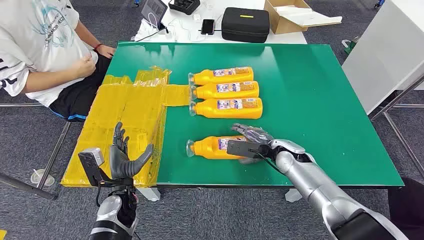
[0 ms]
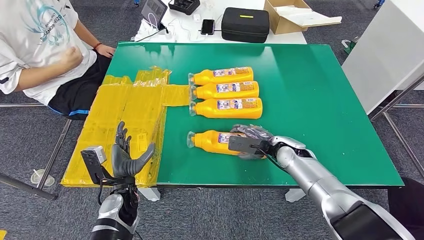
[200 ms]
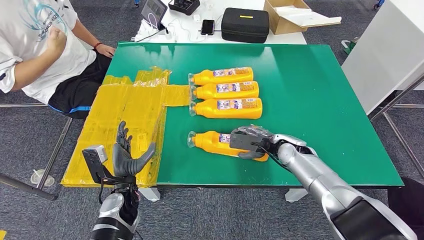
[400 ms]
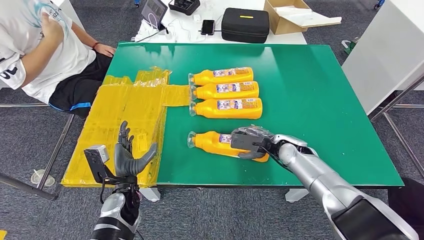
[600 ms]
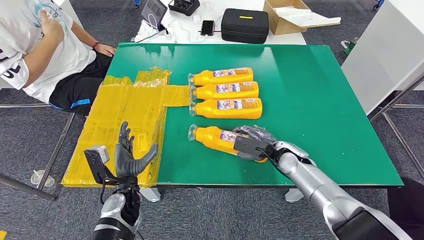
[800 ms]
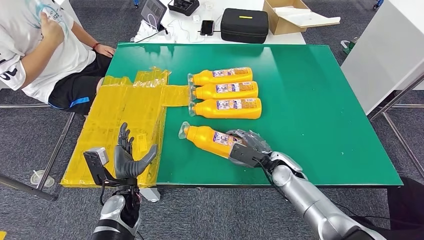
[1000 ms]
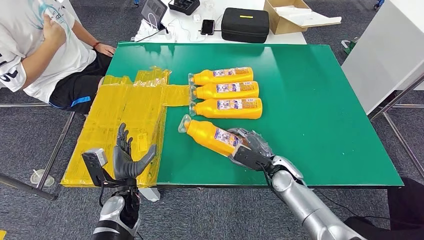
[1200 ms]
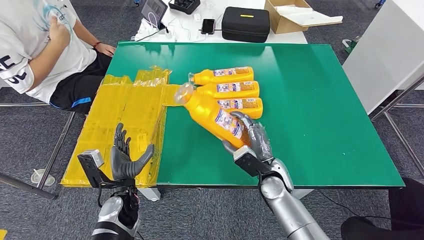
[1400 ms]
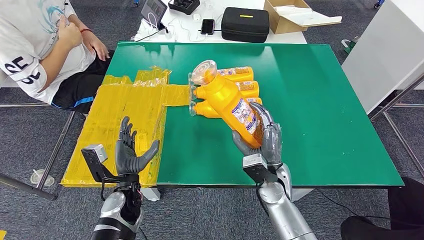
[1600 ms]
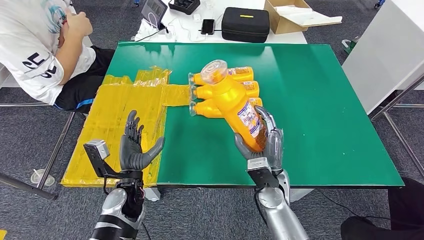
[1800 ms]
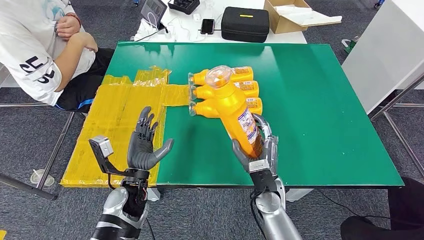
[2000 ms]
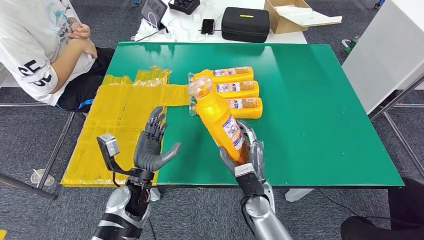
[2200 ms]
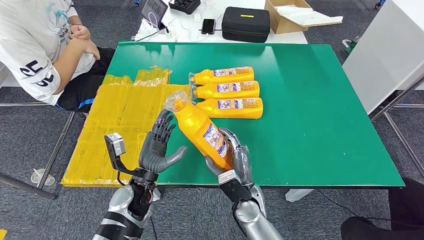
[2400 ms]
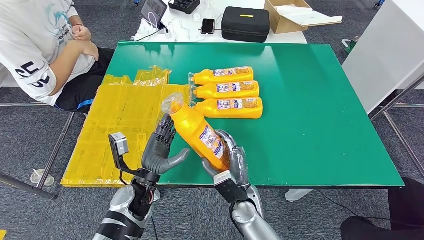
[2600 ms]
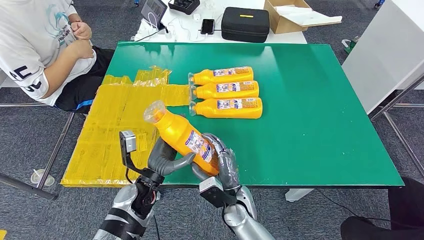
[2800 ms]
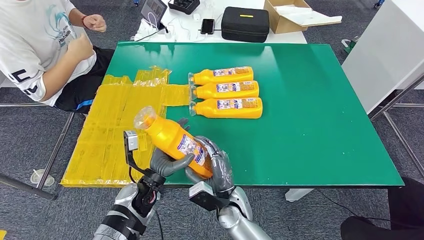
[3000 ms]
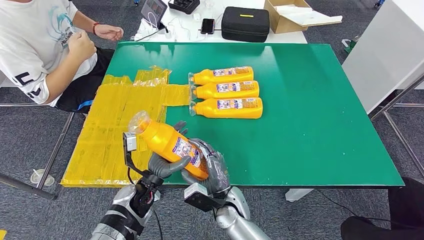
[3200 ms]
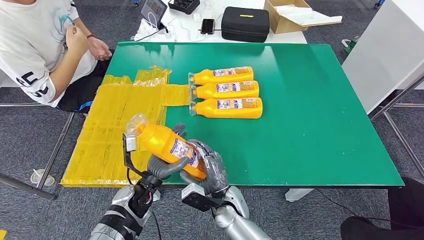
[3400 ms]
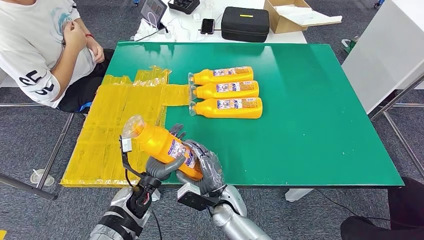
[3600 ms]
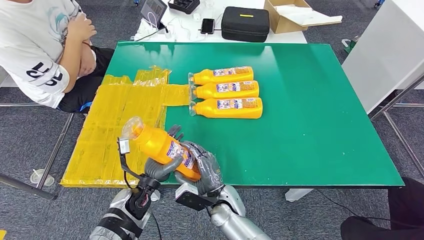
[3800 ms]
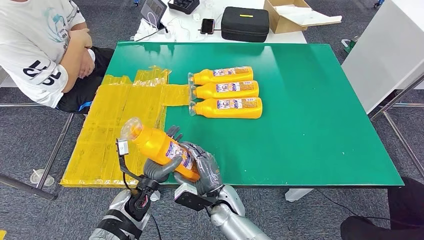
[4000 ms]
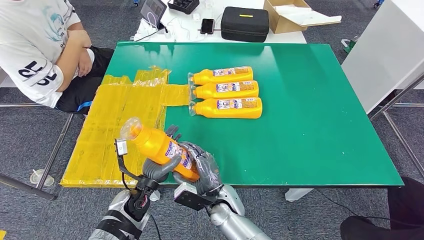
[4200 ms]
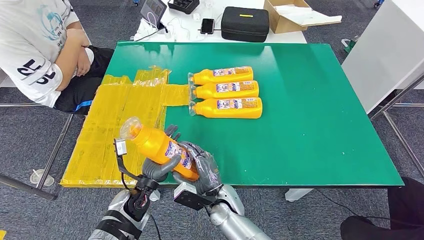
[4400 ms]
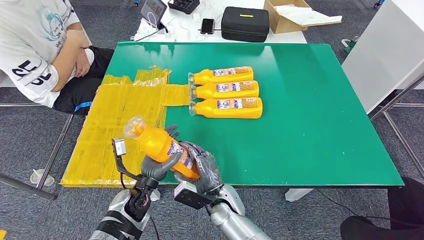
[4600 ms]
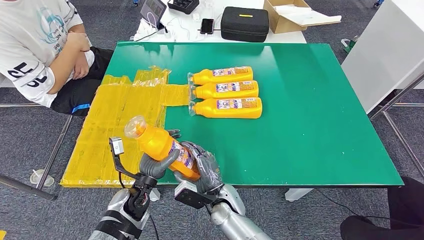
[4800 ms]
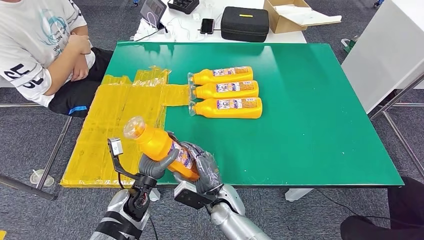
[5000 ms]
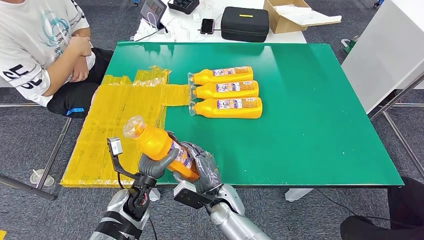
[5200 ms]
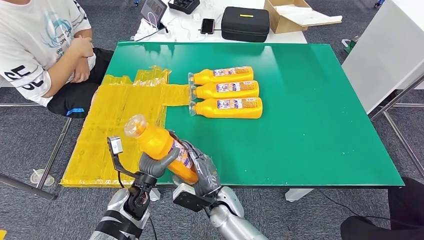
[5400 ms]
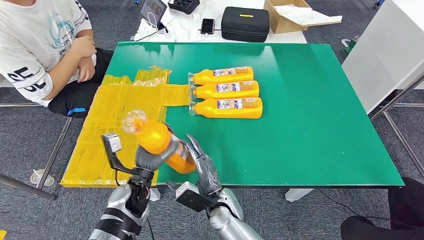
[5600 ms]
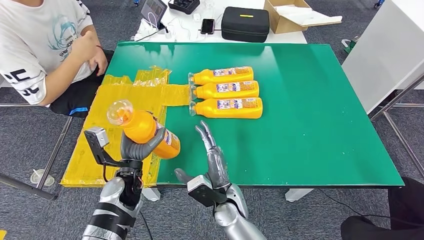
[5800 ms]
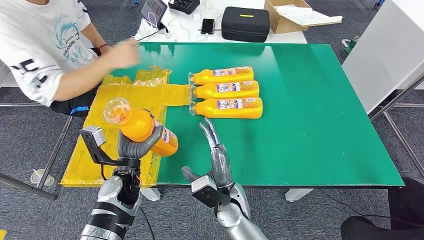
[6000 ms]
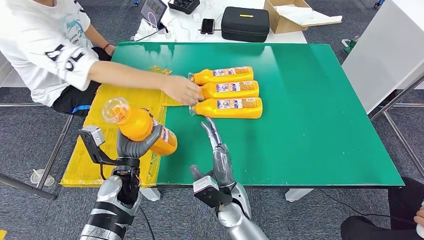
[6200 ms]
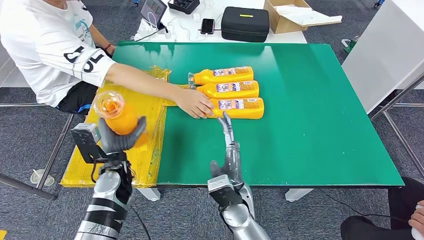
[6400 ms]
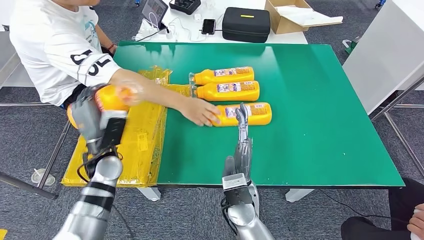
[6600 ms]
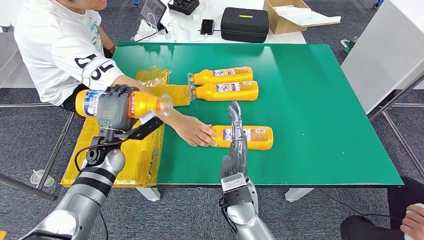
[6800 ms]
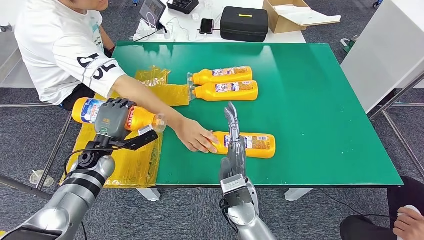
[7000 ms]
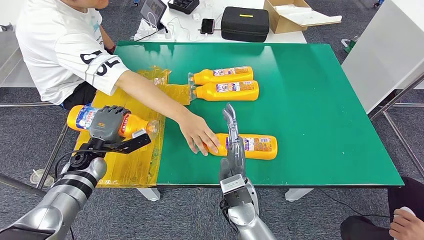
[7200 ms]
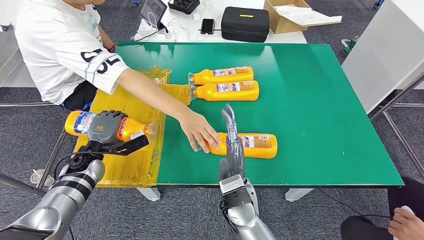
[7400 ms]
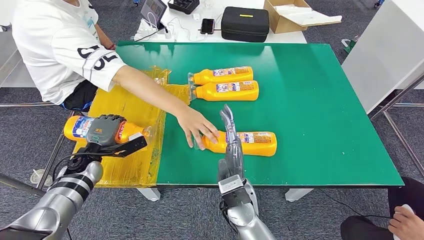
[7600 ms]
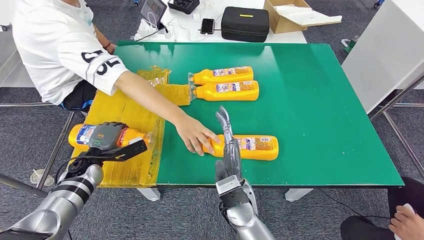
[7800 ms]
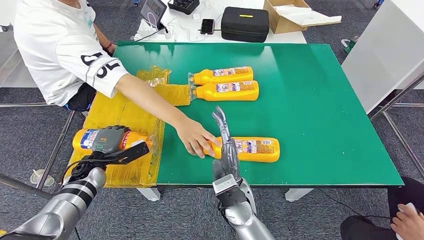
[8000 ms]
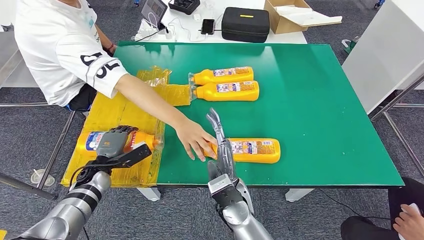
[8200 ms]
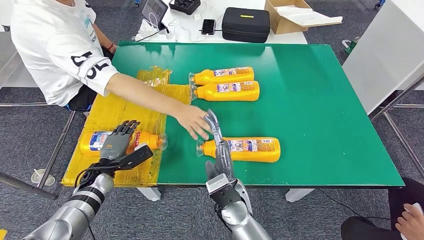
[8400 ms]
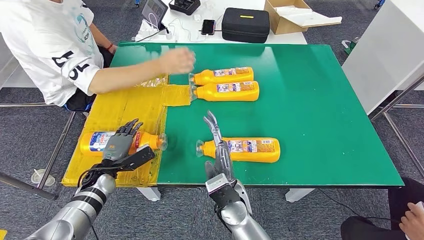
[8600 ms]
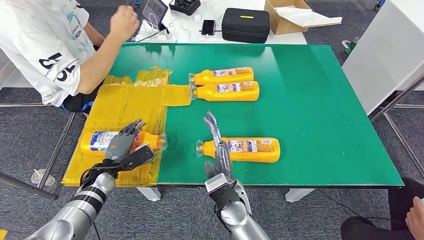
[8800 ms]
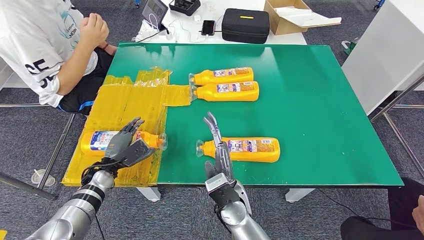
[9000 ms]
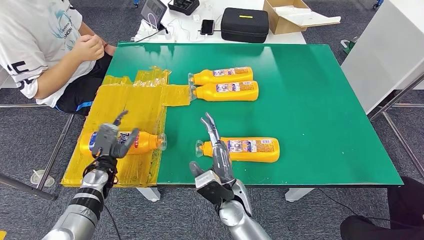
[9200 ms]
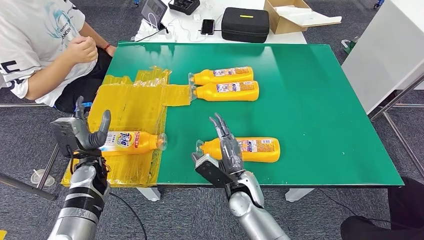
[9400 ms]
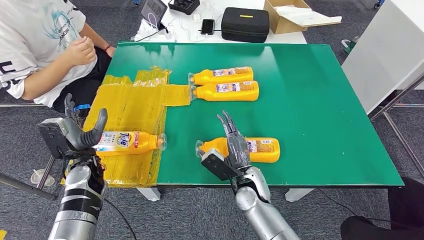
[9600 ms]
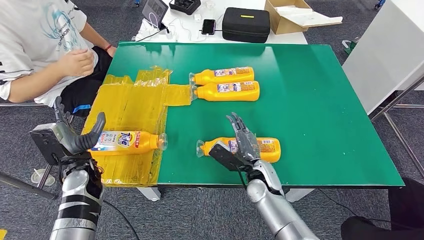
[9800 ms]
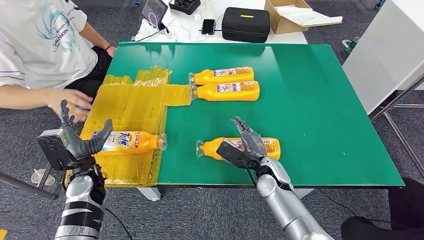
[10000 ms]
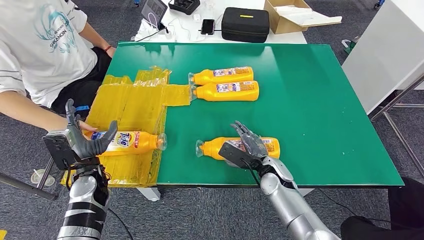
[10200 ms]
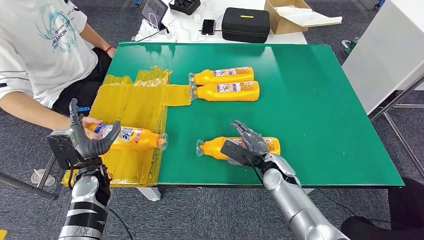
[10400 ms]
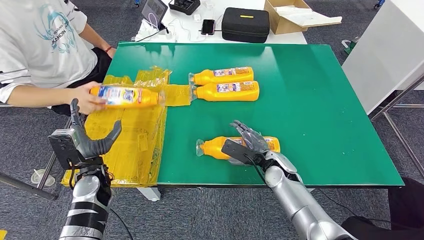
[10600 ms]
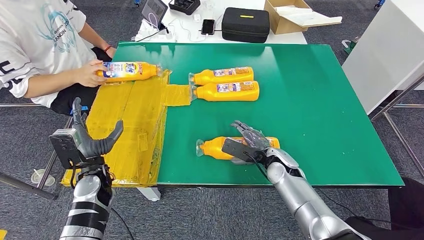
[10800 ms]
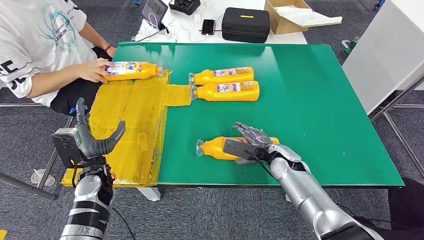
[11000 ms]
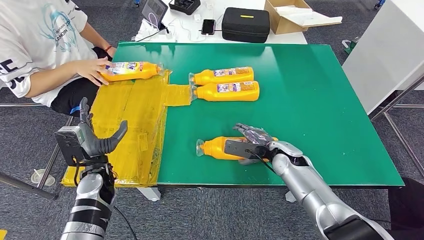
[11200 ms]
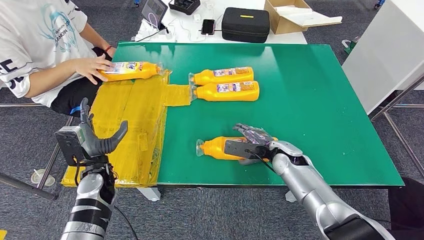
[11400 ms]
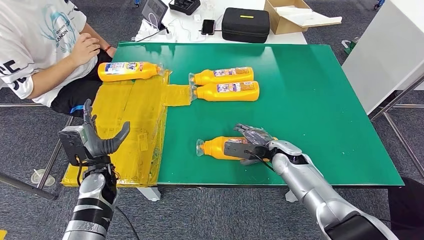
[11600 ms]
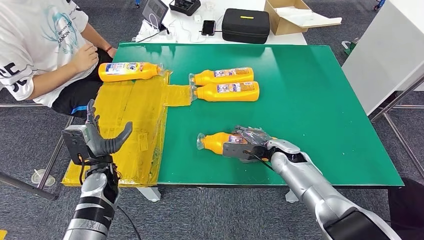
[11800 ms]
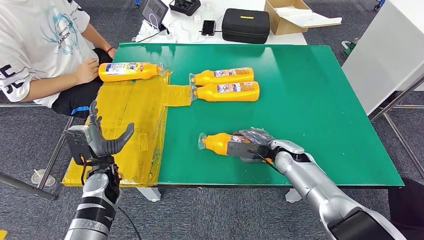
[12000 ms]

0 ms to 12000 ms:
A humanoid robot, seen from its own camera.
Step, 0 ms to 2600 ms: Take the fast-moving consumer goods bottle from the table.
Step, 2800 ms to 9600 ms: Flip the fast-moving consumer goods bottle to the front side.
1600 ms to 3000 ms: The right hand shifts approximately 10 cm to the left and downward.
3000 ms to 4400 ms: The hands move only a little.
4400 ms to 6000 ms: The left hand goes some 5 cm upward.

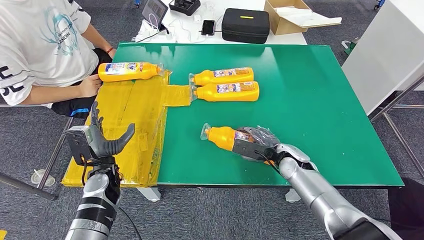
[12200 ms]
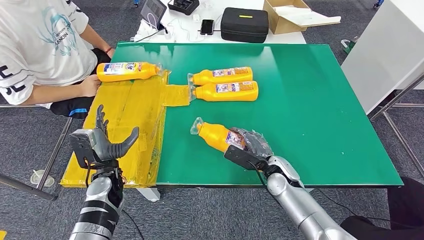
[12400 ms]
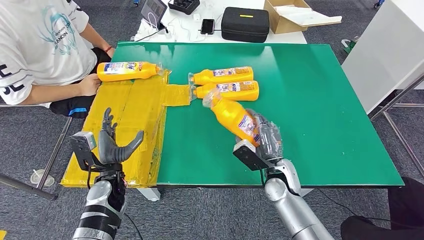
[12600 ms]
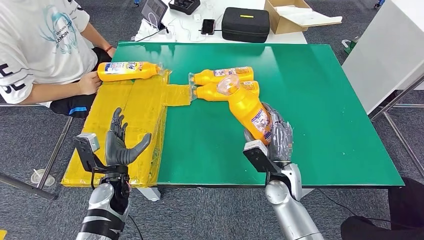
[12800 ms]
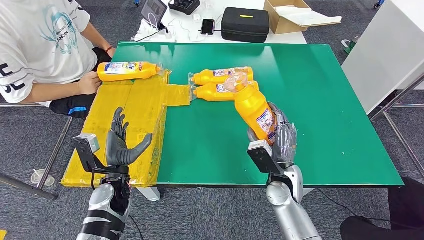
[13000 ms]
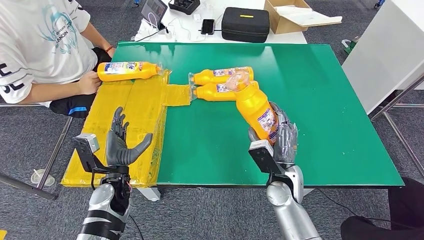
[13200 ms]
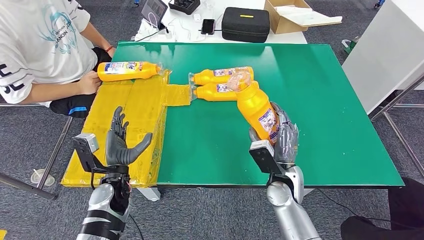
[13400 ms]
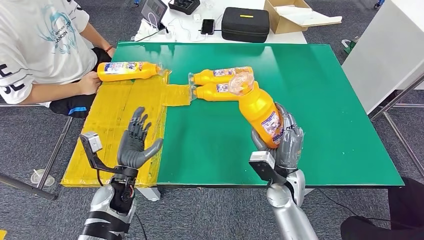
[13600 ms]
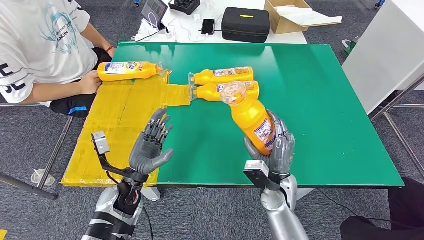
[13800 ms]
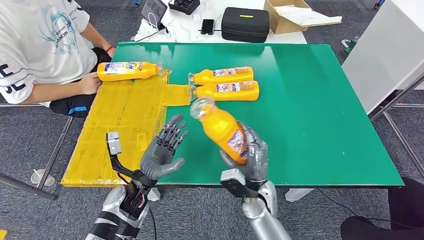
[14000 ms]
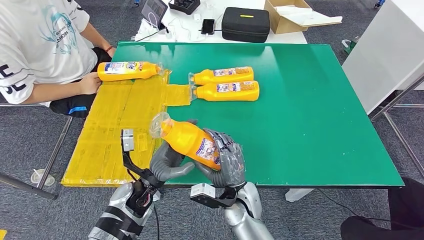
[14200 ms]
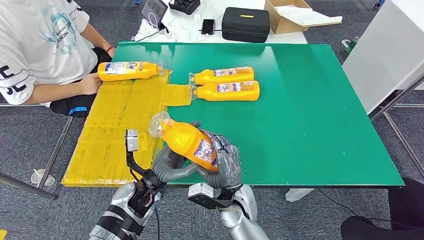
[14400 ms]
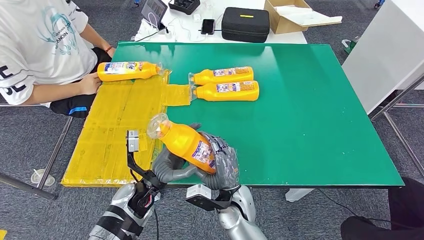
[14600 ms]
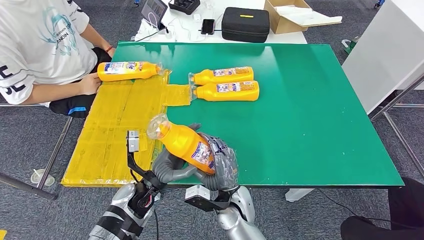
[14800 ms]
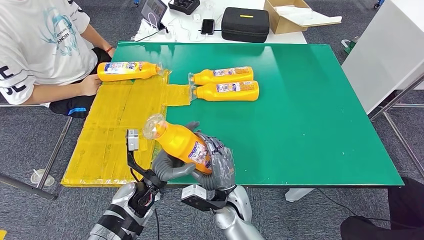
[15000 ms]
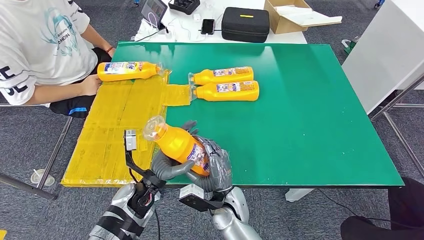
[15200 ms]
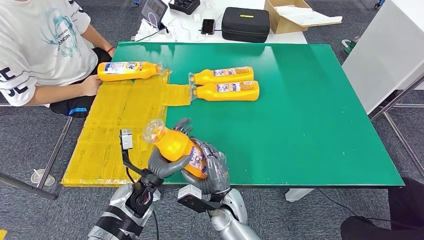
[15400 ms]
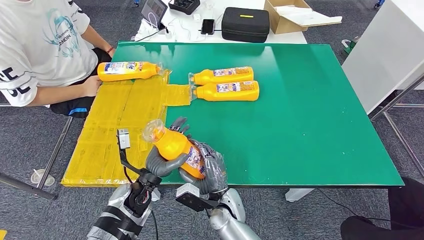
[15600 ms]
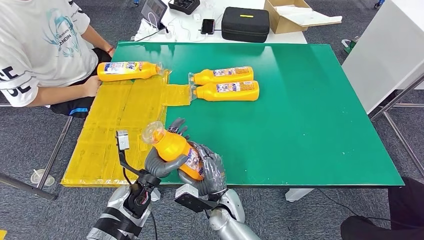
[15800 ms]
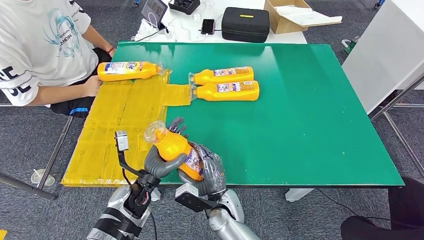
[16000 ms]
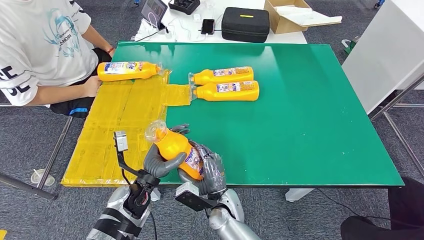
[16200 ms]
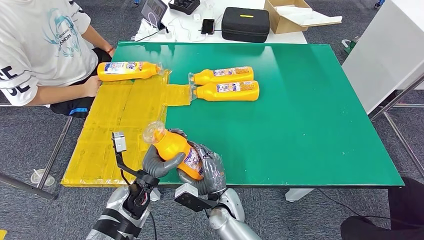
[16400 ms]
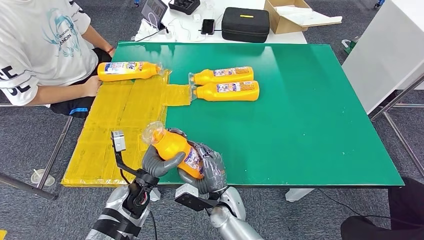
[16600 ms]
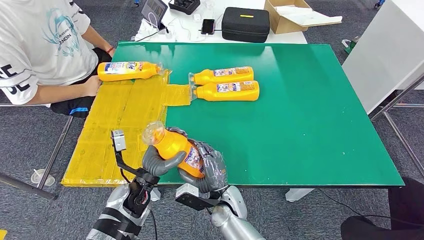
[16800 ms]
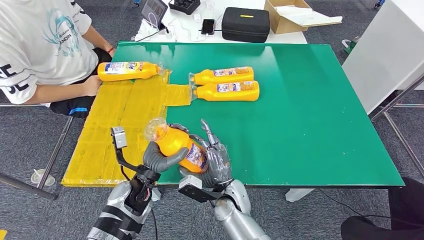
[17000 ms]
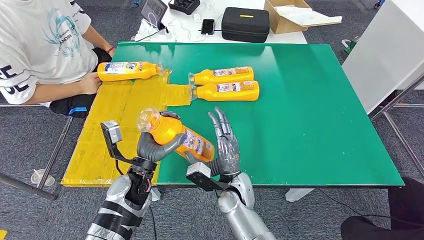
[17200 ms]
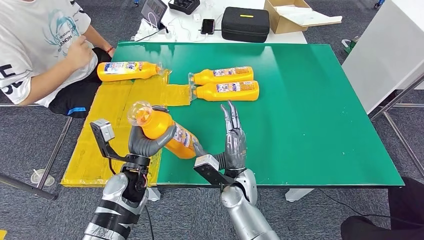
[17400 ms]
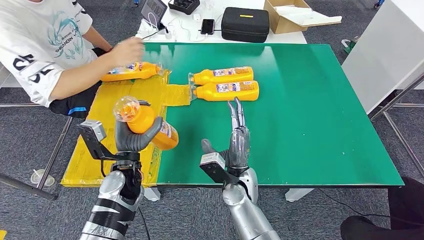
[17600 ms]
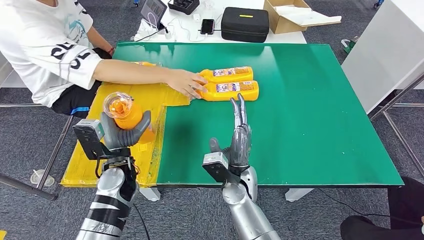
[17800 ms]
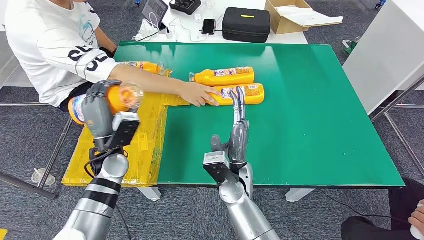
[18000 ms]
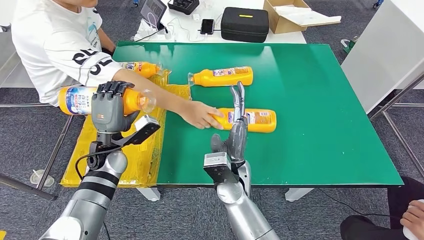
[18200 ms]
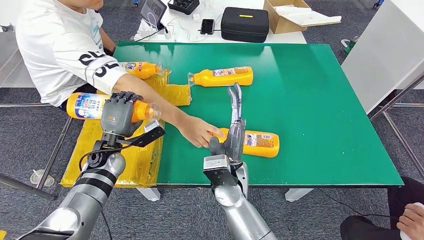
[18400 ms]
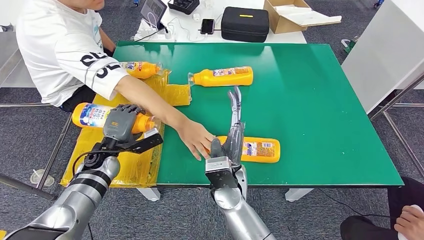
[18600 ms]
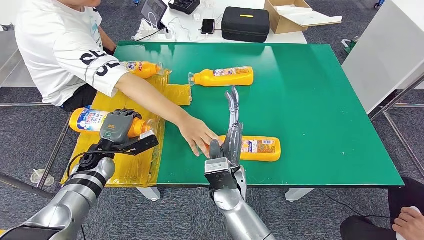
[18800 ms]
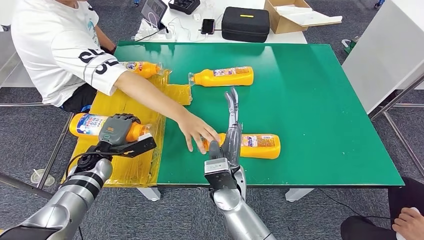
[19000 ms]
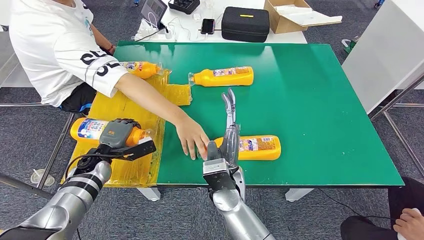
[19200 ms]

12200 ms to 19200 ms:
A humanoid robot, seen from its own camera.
Step, 12400 ms to 14600 ms: Pick up the fast-moving consumer goods bottle from the table.
13600 ms to 15000 ms: The right hand travels to the left by approximately 15 cm.
15000 ms to 16400 ms: The hands move only a little.
